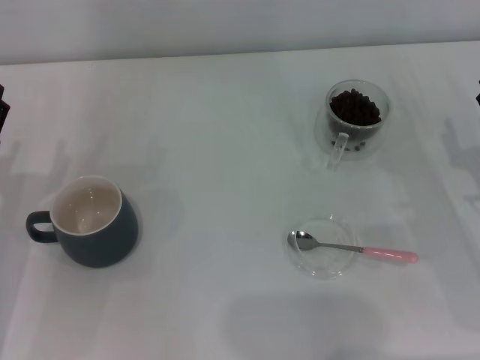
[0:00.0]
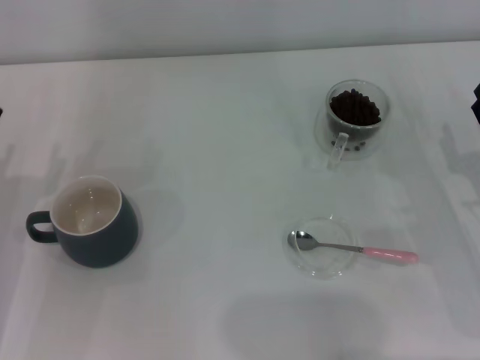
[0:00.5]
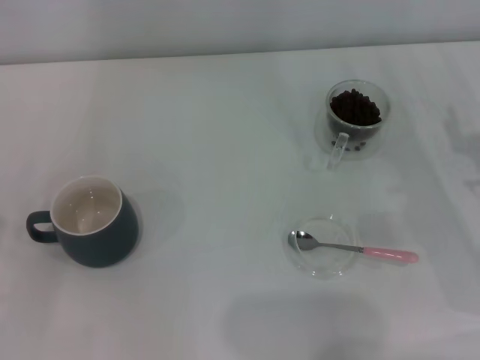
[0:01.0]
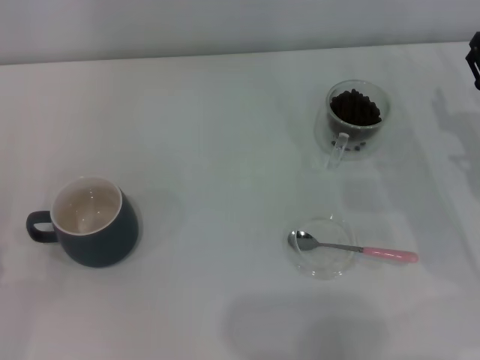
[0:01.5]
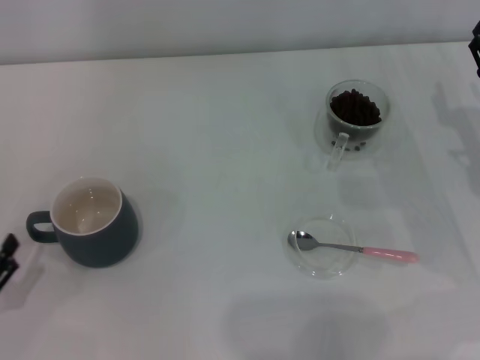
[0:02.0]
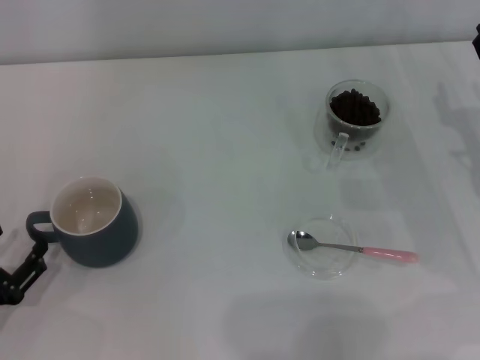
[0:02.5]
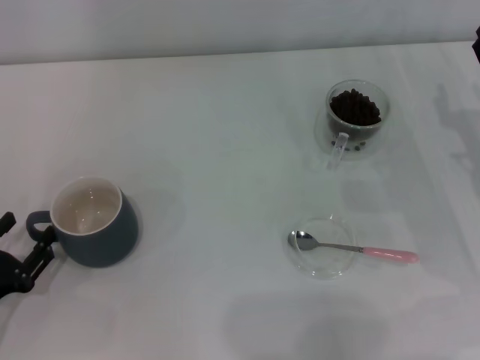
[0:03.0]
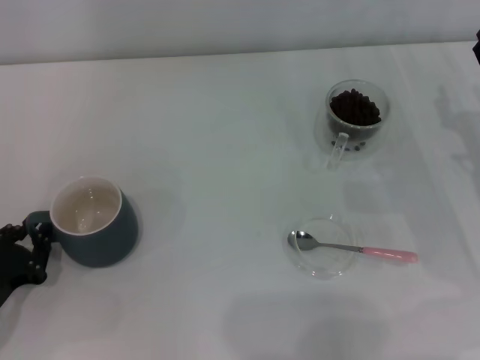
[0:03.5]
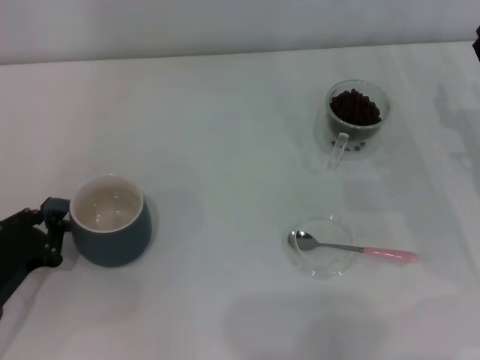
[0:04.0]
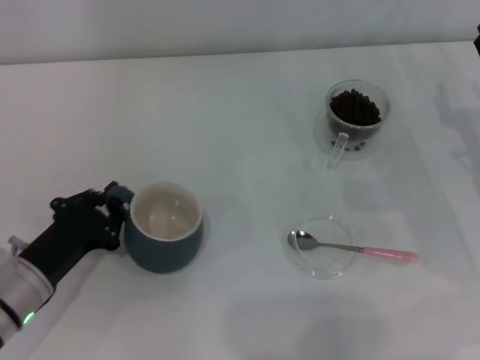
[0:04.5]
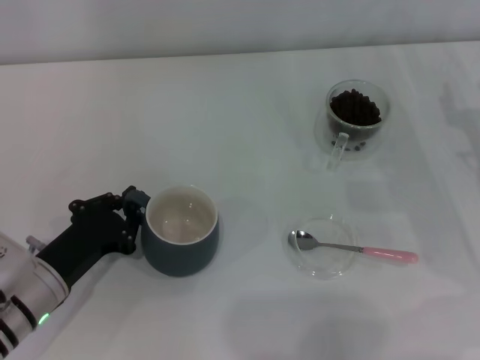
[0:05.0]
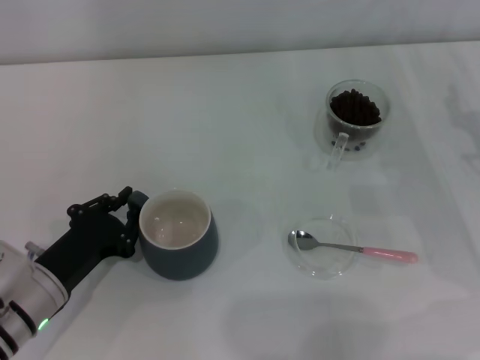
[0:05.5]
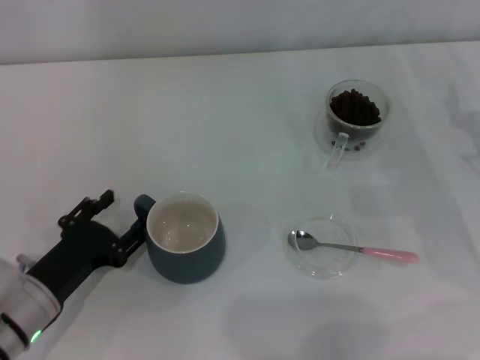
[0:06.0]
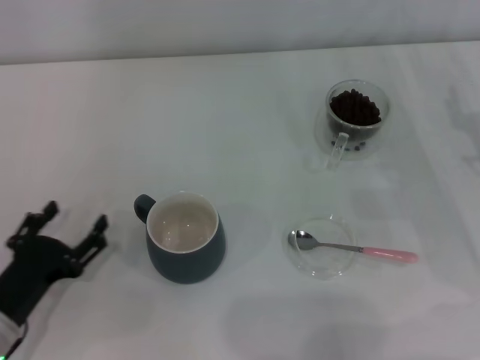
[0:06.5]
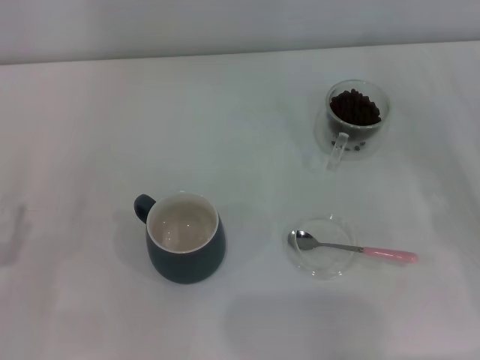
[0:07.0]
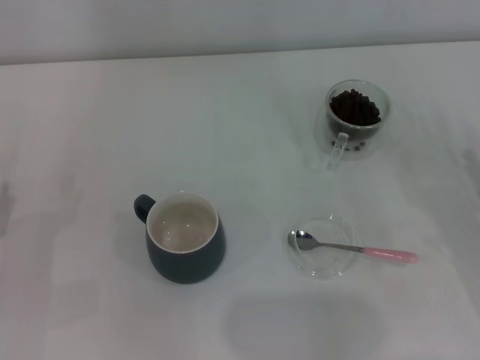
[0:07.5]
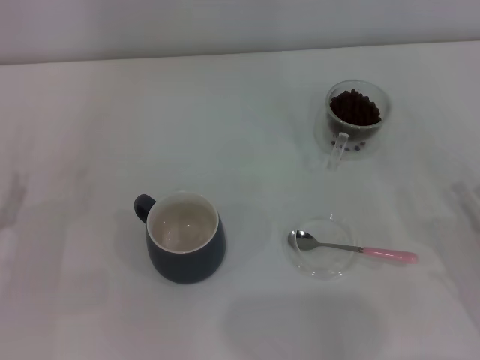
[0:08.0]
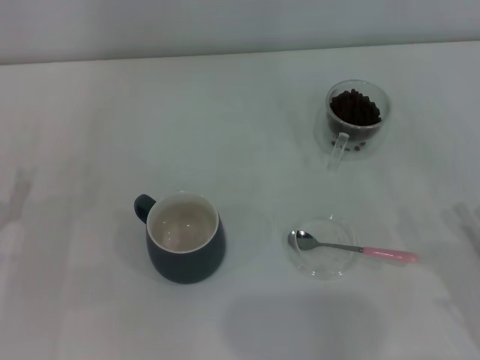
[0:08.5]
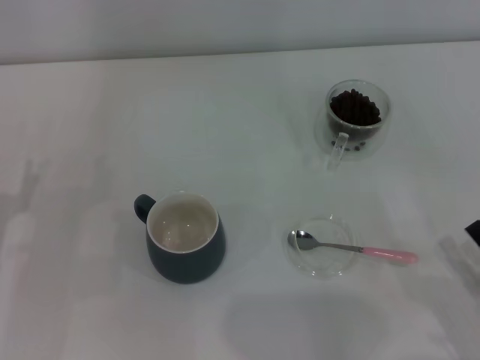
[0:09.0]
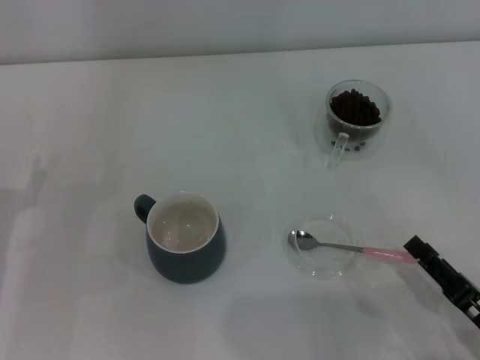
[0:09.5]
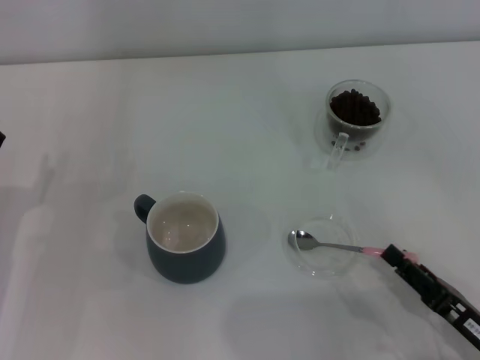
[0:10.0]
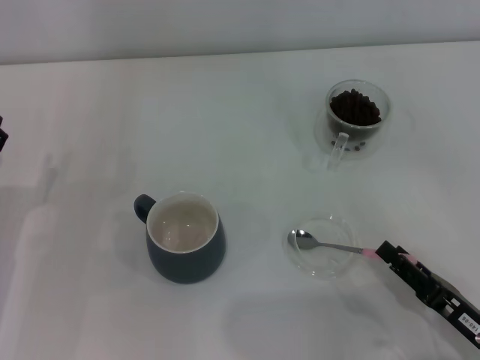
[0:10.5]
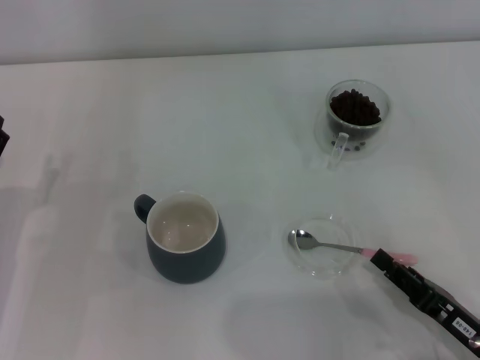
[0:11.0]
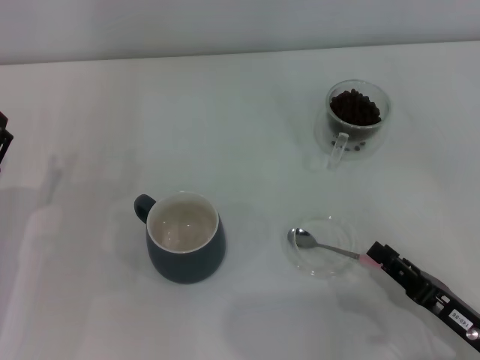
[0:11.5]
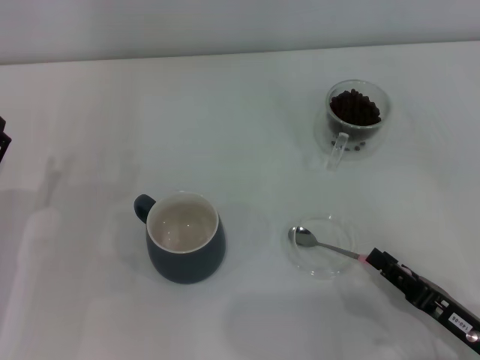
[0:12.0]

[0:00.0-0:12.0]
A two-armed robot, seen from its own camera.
Task of the whole recording: Use a pink spoon to take out the coffee beans from the glass and pour them into the gray cup.
Step, 0:00.0 to 0:06.0: Move the cup to the center of view with the left gripper.
0:00.0 to 0:02.0: The left gripper shifts approximately 10 cm backward and to the left.
0:02.0 to 0:04.0: The left gripper travels forward by approximately 5 cm, and closes up.
0:04.0 to 0:06.0: The left gripper moves to the right, approximately 5 cm, and opens its fingers.
0:06.0 to 0:08.0: The right gripper goes about 15 cm backward. The left gripper goes about 10 cm to the left, and opens.
0:08.0 to 0:10.0: The right gripper is displaced to the left and backward by approximately 10 cm.
0:10.0 to 0:12.0: The grippers make only small movements.

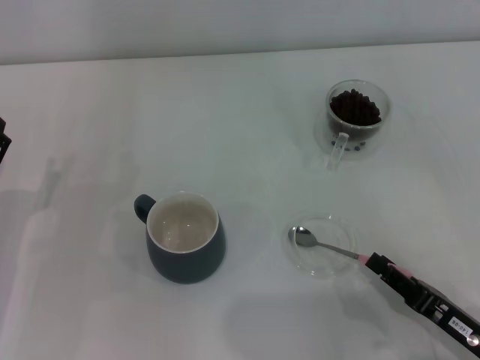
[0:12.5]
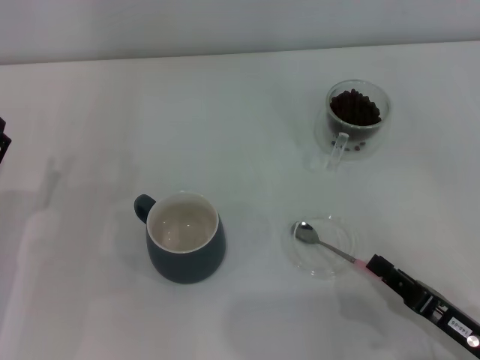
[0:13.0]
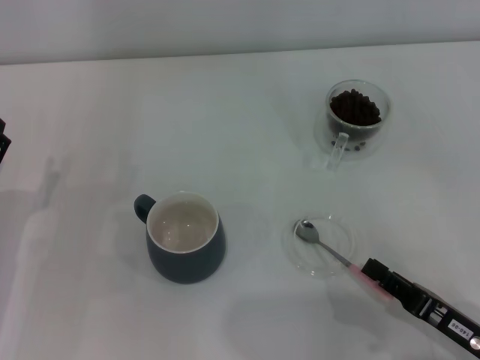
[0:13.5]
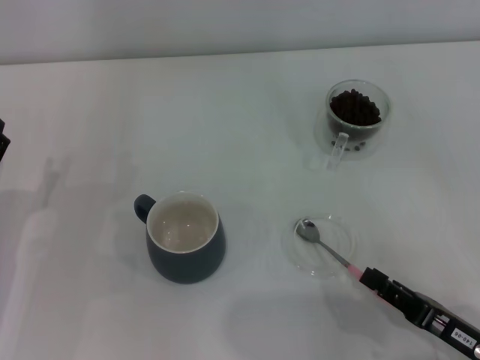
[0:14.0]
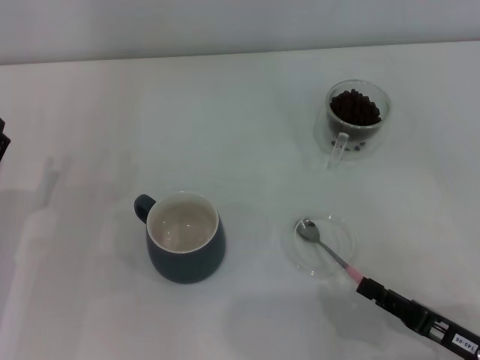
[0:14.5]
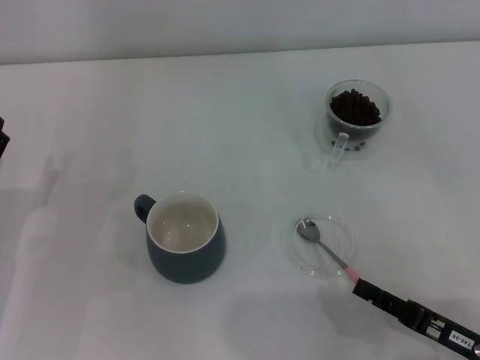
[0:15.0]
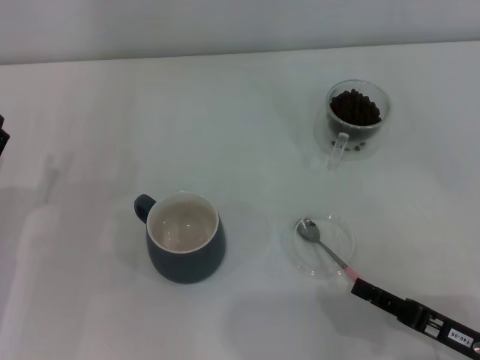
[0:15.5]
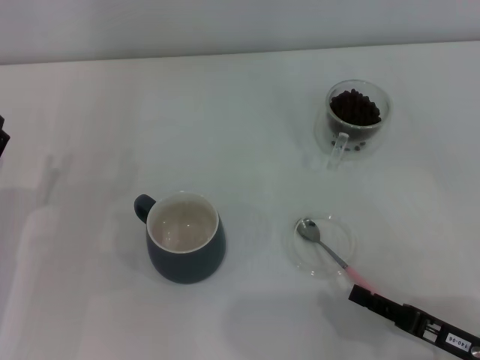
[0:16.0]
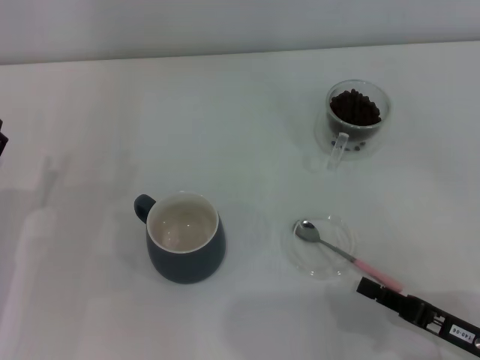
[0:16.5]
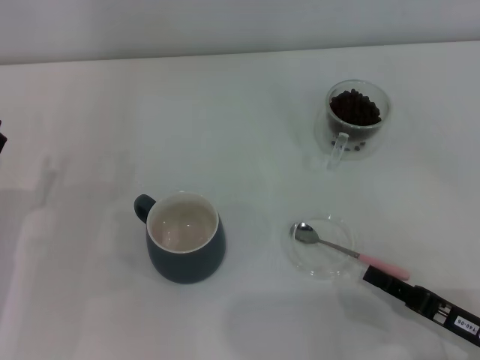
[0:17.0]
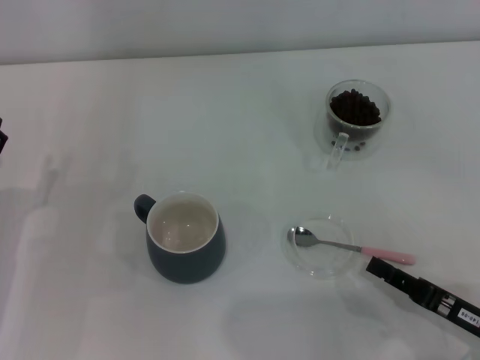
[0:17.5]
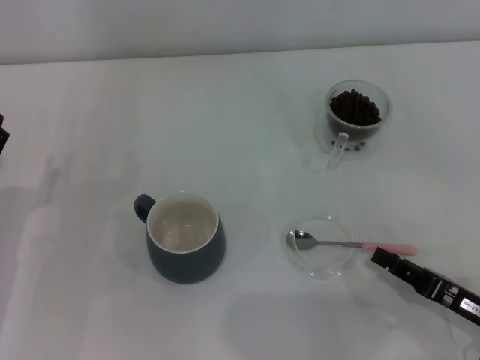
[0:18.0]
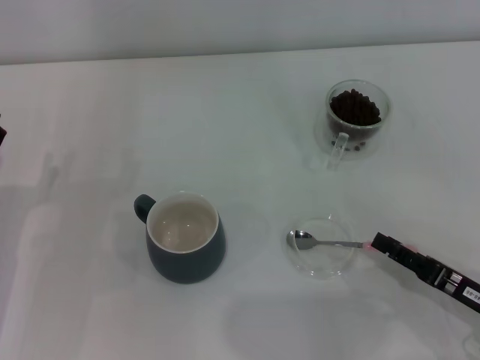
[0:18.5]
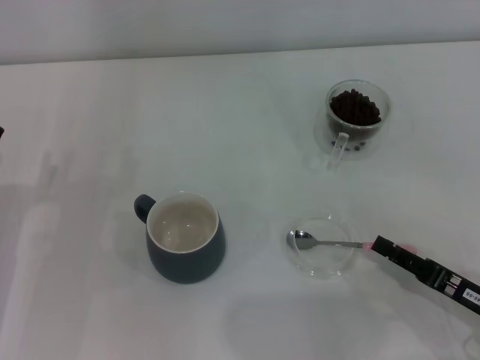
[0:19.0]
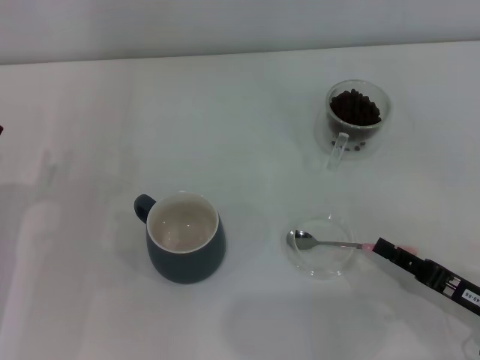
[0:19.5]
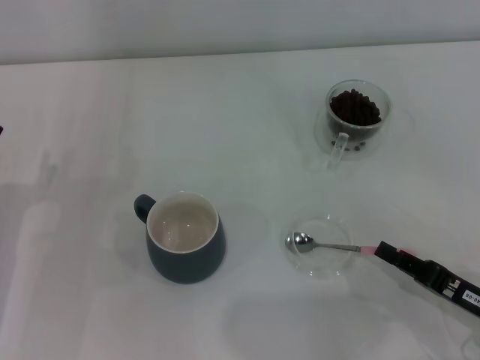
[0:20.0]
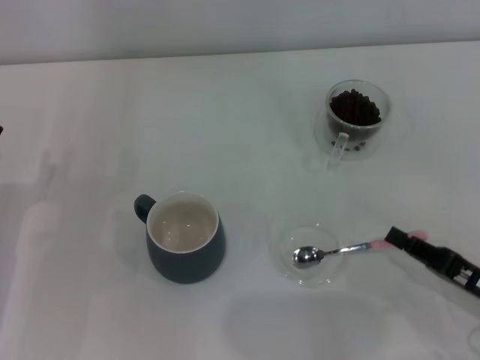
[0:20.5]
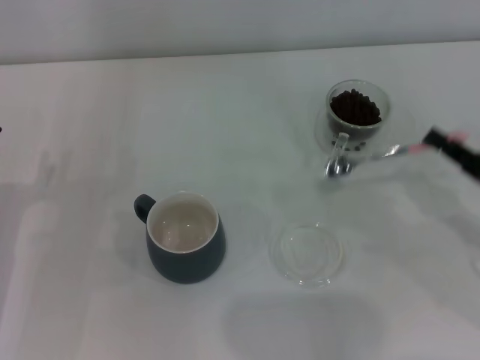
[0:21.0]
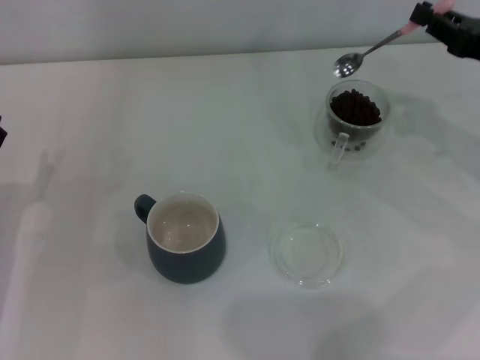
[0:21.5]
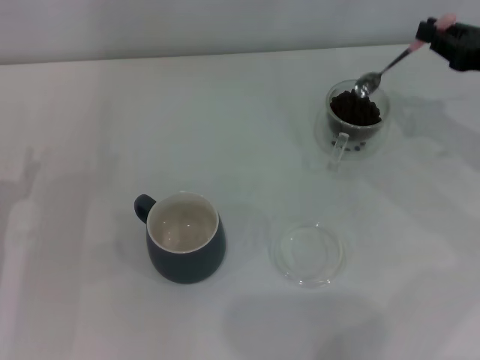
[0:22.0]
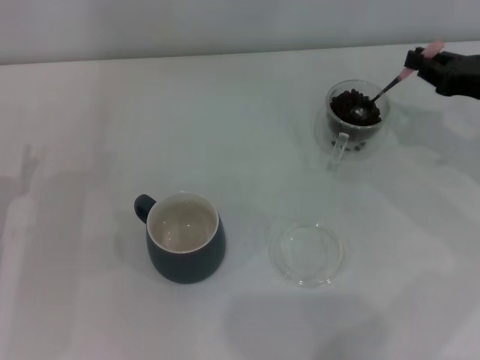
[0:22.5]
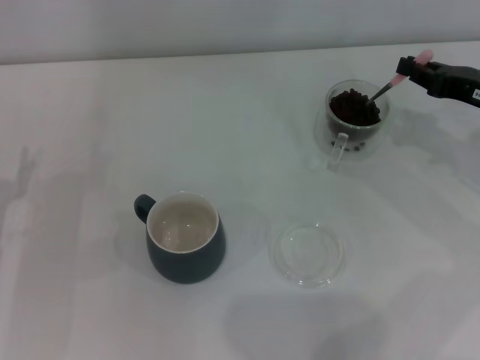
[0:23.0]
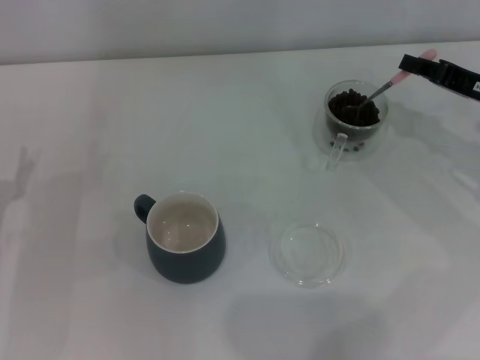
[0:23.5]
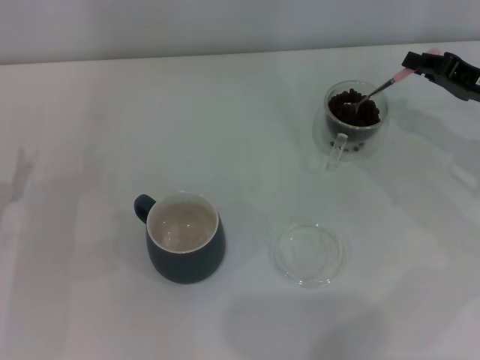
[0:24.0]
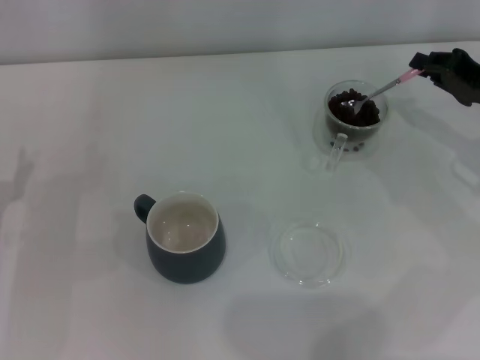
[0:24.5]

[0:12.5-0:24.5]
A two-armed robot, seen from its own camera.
Task of the whole recording: Use a pink spoon to take out the coffee beans from the glass and pour them into the gray cup.
Step, 0:12.5 to 0:20.5: Pick up the spoon with the right gripper.
0:12.5 to 0:16.5: The grippers make only small movements.
0:16.5 to 0:18.5: The right gripper opens.
0:18.5 to 0:20.5: The right gripper closes its fingers.
0:20.5 to 0:22.5: The right gripper goes approximately 20 cm forward and upward.

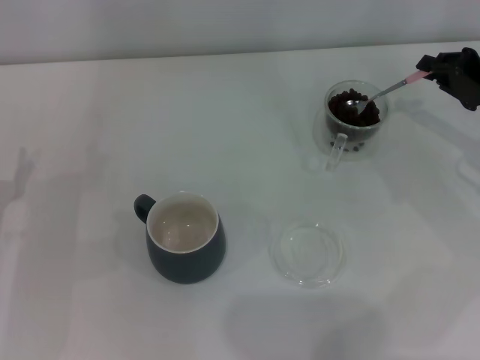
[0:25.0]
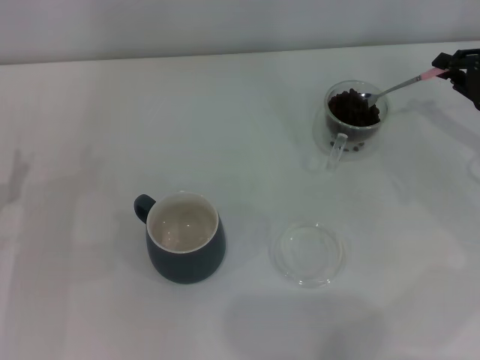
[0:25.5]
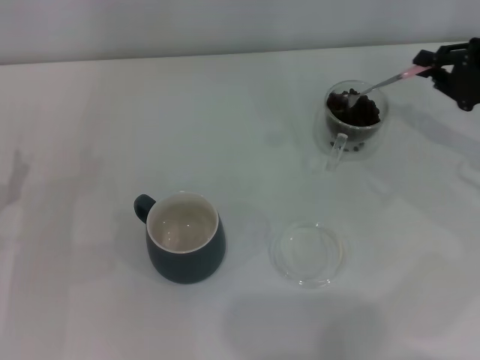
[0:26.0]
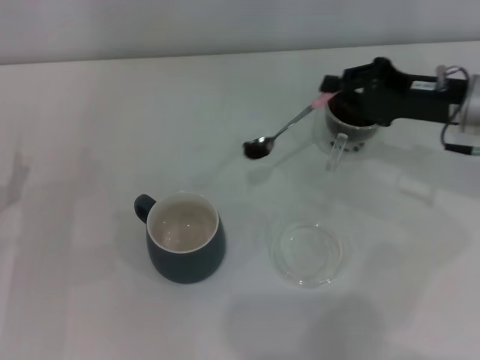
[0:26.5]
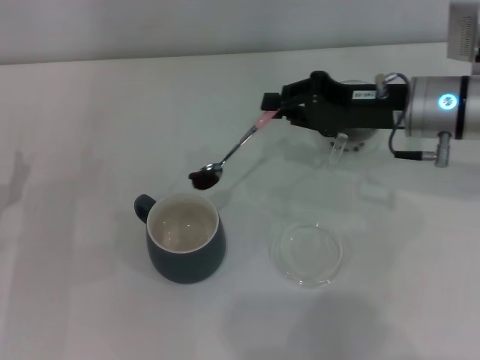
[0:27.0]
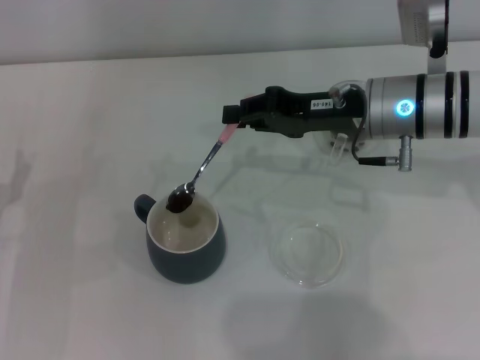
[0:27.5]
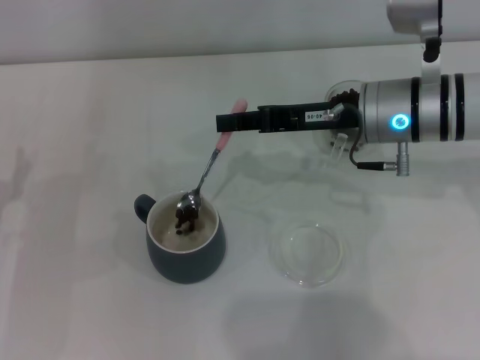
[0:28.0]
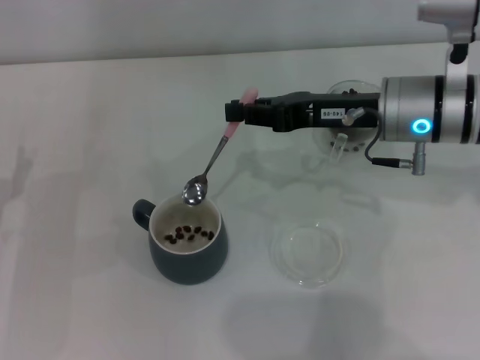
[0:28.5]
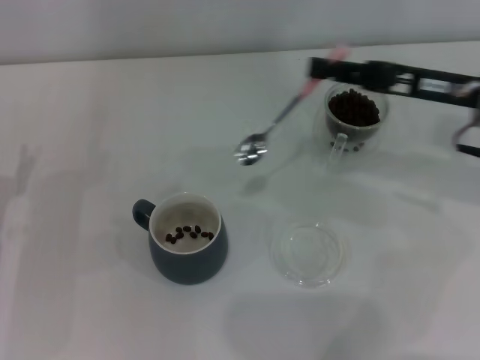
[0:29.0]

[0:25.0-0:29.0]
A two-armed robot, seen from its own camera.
Task of the whole recording: Use a pink spoon to take out the coffee beans from the glass and pour them into the gray cup.
Step, 0:25.0 to 0:28.0: Scoop a spoonful of beans into the cup with the right gripper.
0:25.0 to 0:27.0: The right gripper is displaced to the left by some 15 cm.
0:27.0 to 0:29.0: The right gripper moves about 5 cm.
